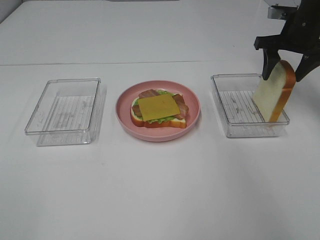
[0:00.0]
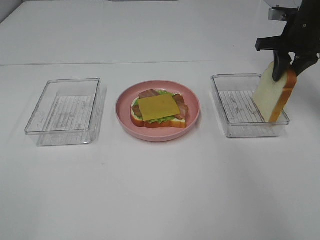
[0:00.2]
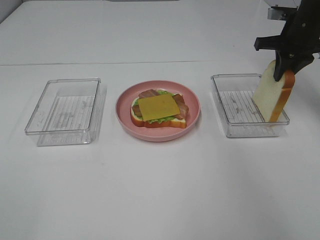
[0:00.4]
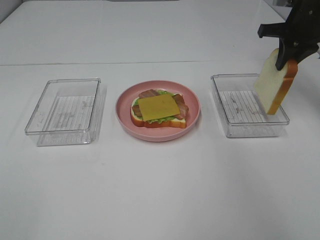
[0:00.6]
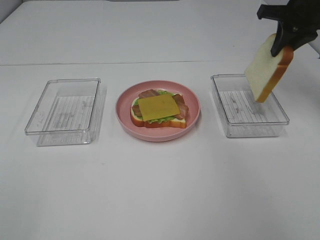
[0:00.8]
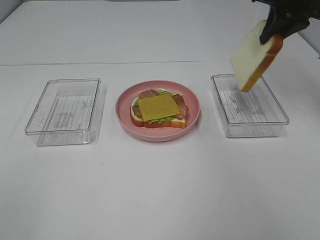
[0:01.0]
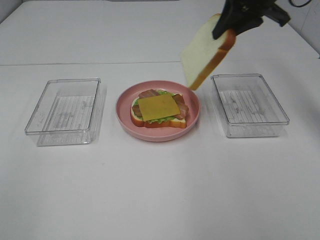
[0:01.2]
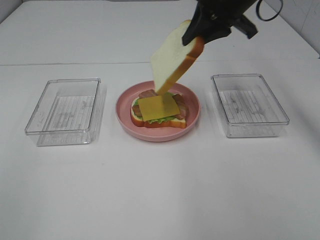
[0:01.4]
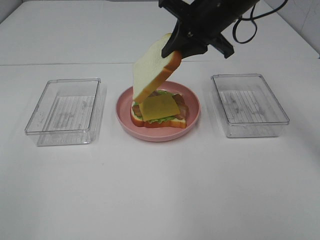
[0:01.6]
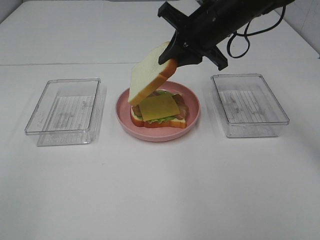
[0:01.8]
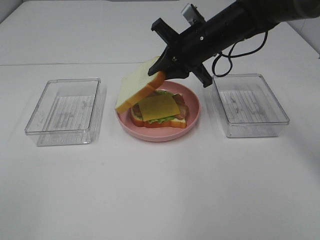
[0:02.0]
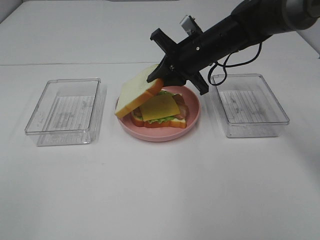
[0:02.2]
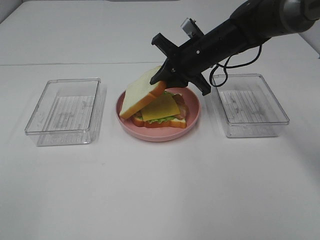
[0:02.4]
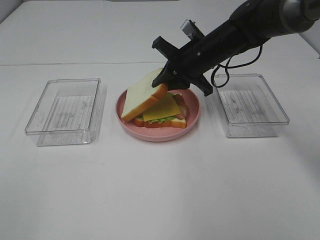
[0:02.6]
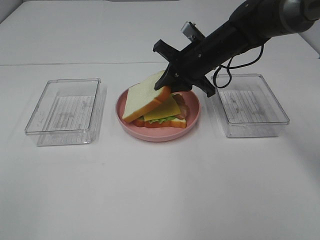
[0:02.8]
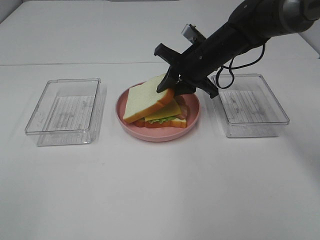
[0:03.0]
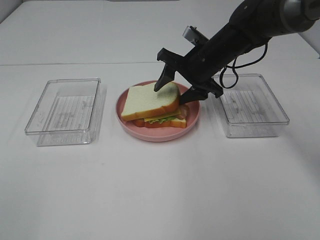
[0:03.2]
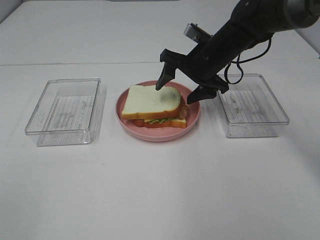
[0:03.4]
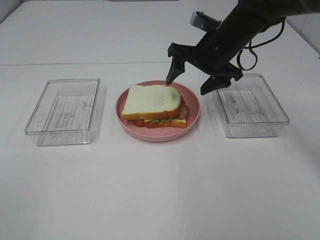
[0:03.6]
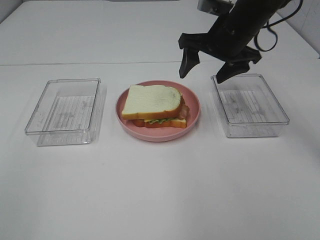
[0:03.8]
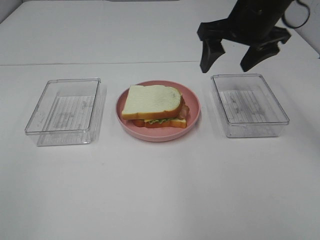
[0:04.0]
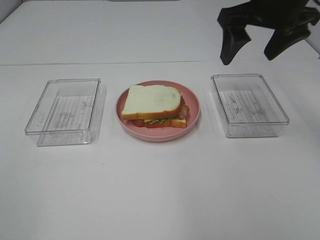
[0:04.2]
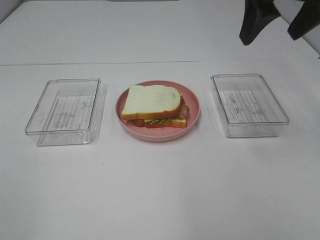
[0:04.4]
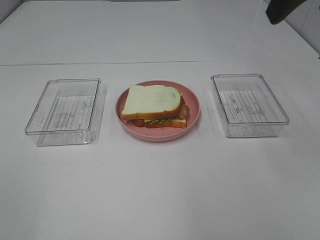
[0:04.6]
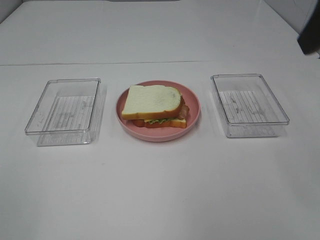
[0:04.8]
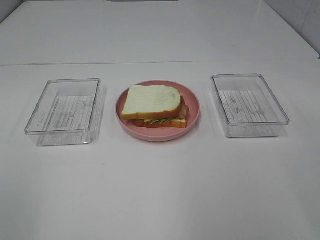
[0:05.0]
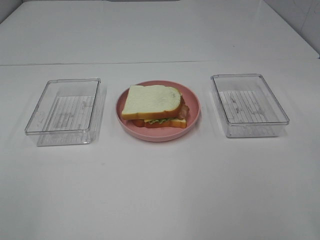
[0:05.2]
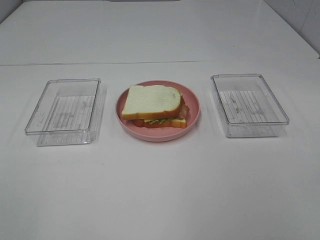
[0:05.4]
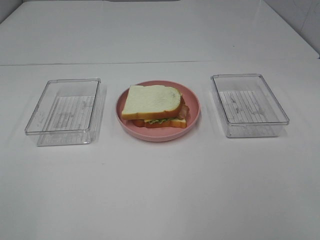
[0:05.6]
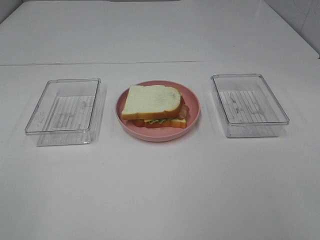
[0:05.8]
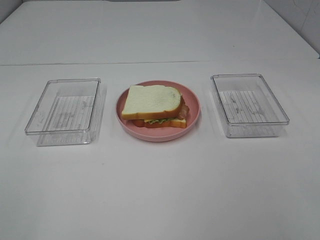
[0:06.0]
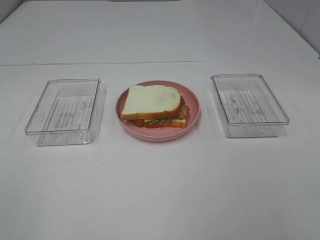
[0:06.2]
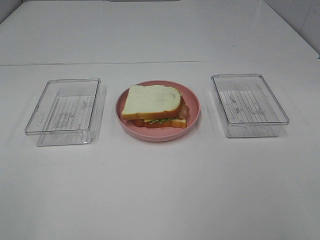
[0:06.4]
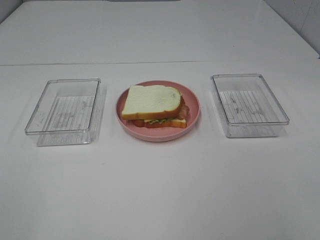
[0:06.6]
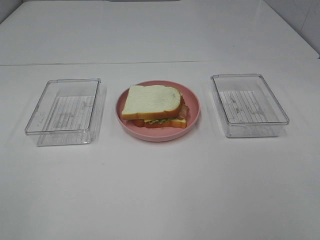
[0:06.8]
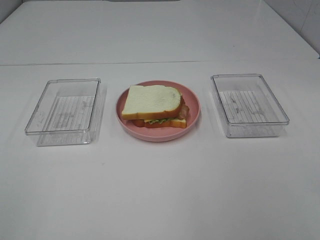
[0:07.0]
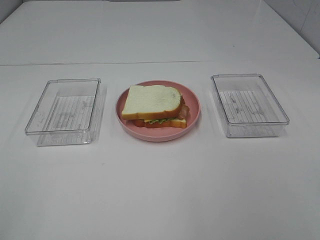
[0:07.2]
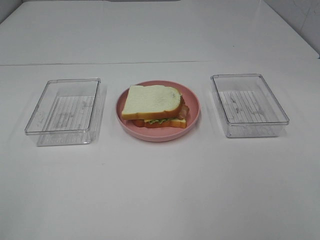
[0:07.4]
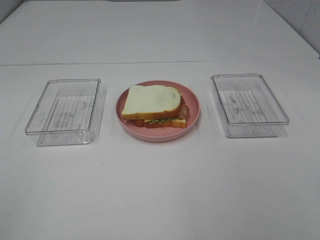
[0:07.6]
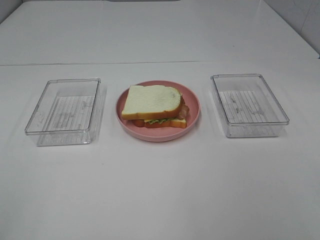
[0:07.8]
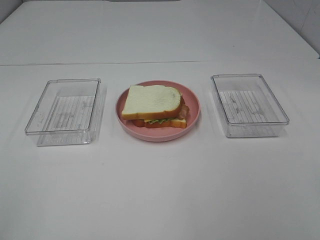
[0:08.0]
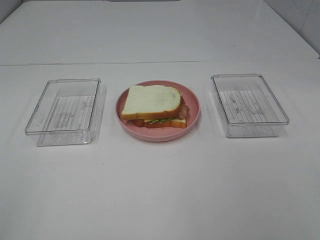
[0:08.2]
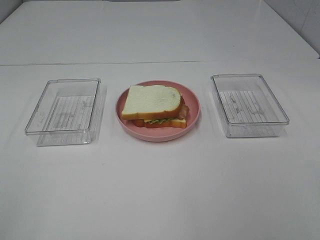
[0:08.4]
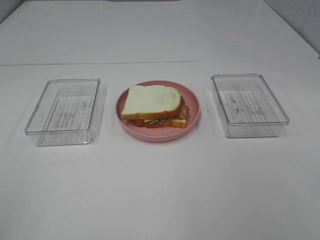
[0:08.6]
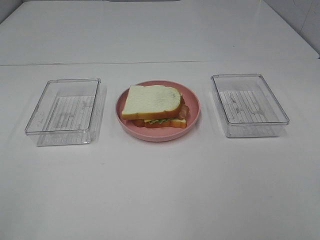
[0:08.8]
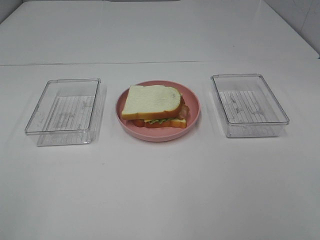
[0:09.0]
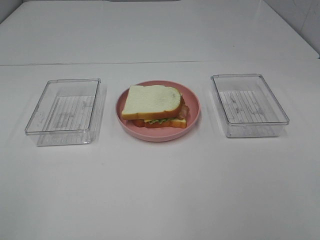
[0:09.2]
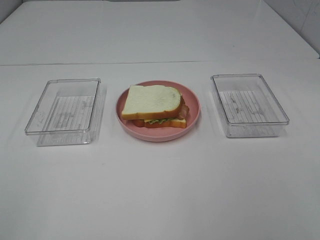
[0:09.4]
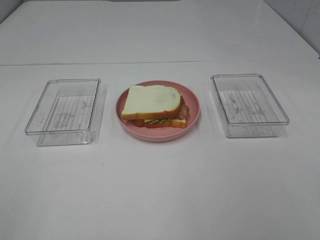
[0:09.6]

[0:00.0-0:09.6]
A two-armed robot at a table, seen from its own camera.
Task of the whole recording: Make sandwiches.
Step, 0:00.6 to 0:03.8: Right hand:place the bread slice on the cheese slice.
0:00.0 to 0:01.6: The right gripper heads to the left, covering about 15 cm, and closes.
0:01.6 to 0:03.2: The right gripper moves downward, some 10 cm, and opens its fingers.
0:03.2 to 0:04.8: The right gripper moves upward, backward and to the right, roughly 35 cm.
0:04.8 to 0:06.4: The right gripper moves backward and downward, approximately 20 cm.
0:08.0 to 0:09.6: Neither gripper changes place.

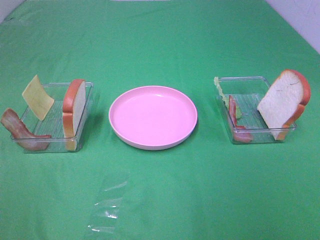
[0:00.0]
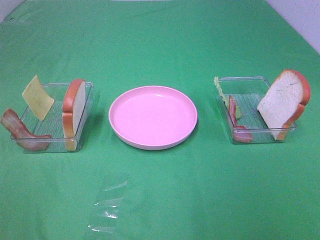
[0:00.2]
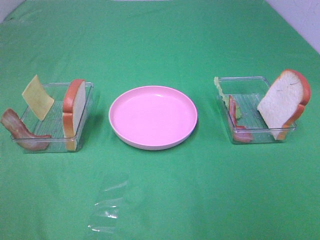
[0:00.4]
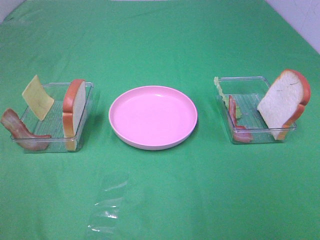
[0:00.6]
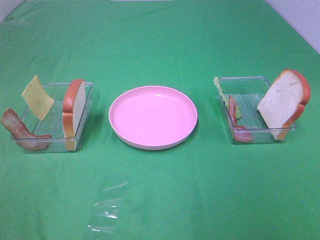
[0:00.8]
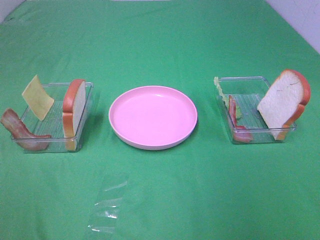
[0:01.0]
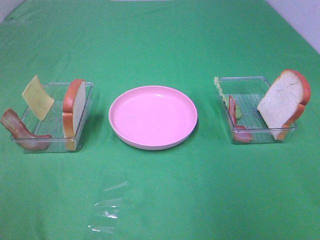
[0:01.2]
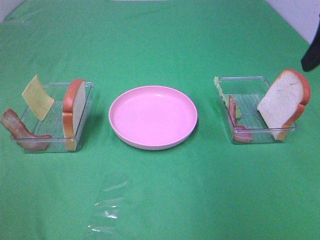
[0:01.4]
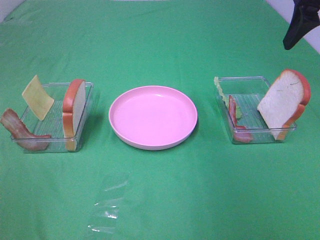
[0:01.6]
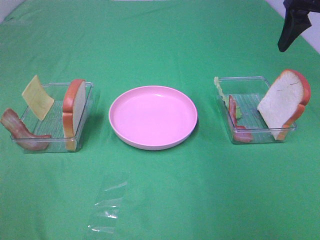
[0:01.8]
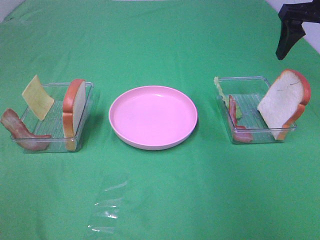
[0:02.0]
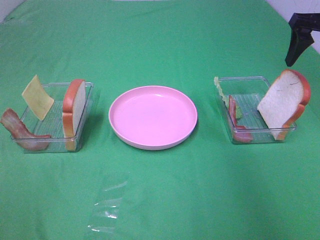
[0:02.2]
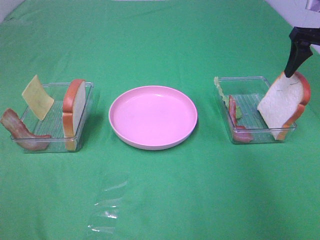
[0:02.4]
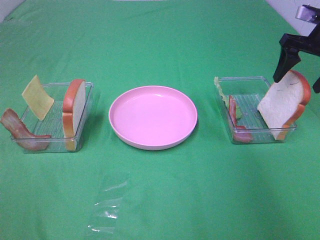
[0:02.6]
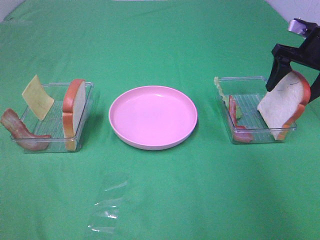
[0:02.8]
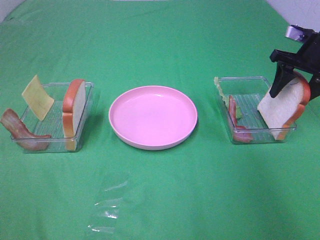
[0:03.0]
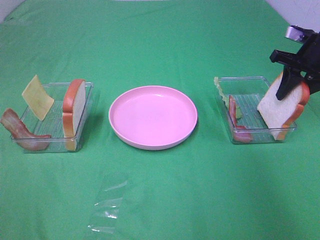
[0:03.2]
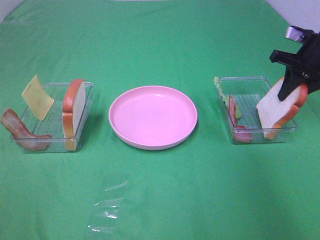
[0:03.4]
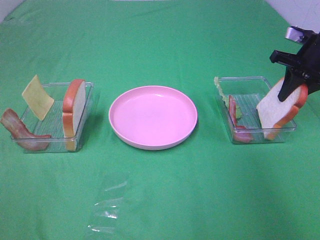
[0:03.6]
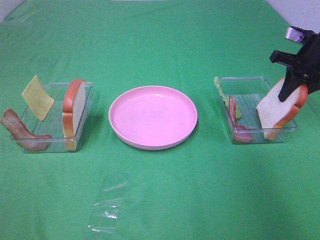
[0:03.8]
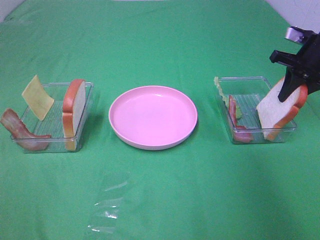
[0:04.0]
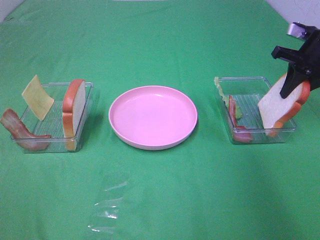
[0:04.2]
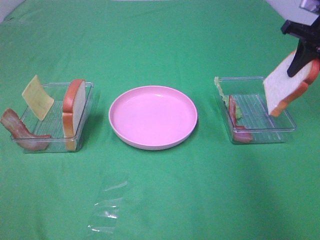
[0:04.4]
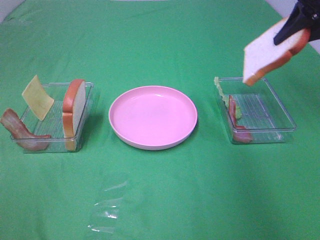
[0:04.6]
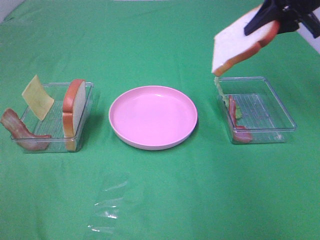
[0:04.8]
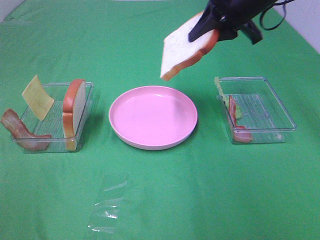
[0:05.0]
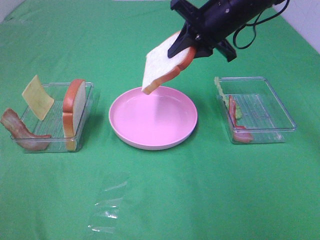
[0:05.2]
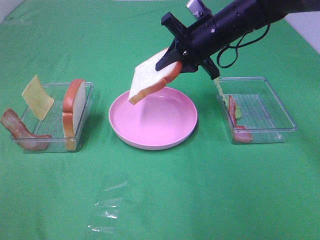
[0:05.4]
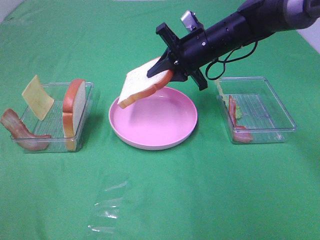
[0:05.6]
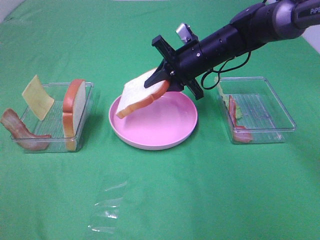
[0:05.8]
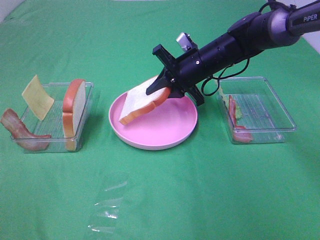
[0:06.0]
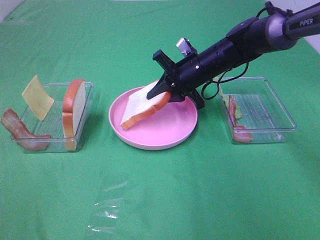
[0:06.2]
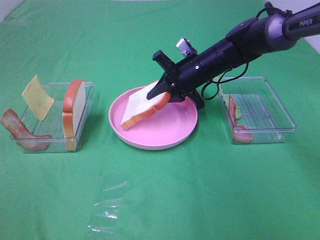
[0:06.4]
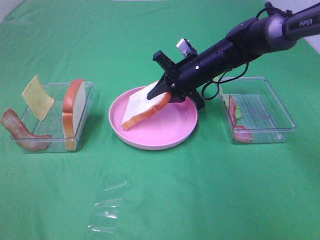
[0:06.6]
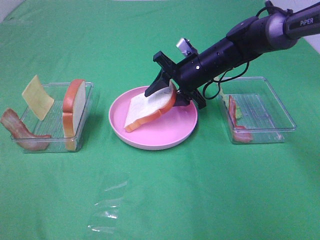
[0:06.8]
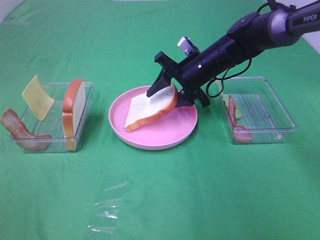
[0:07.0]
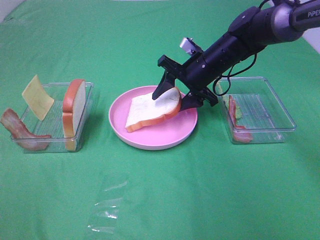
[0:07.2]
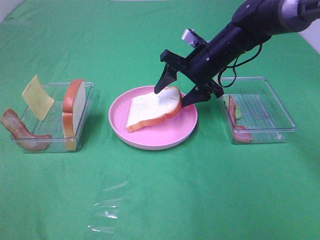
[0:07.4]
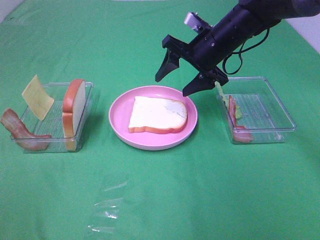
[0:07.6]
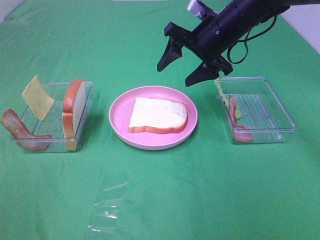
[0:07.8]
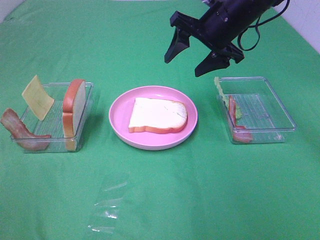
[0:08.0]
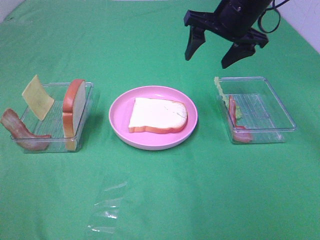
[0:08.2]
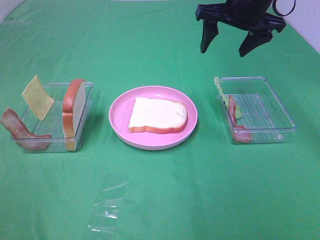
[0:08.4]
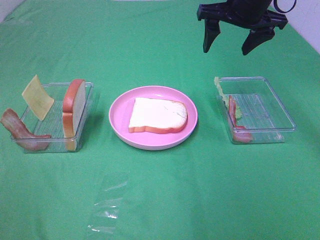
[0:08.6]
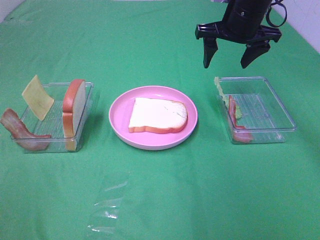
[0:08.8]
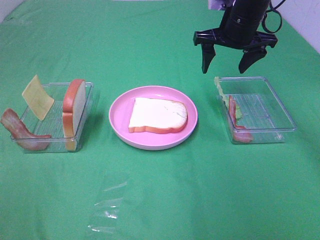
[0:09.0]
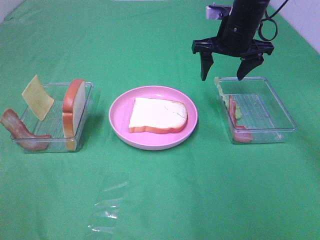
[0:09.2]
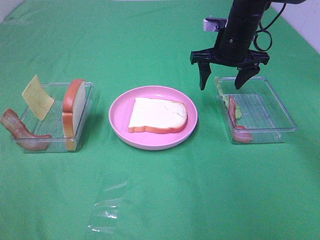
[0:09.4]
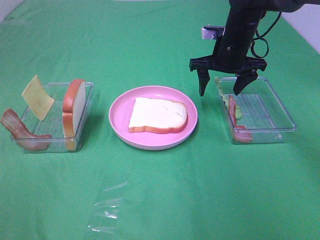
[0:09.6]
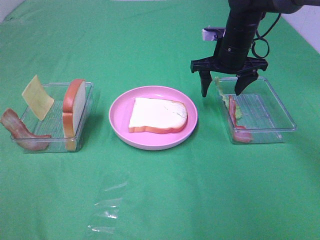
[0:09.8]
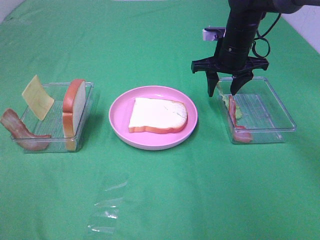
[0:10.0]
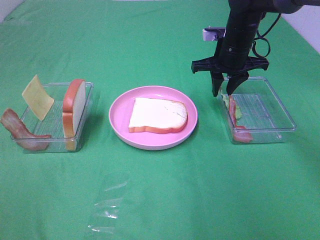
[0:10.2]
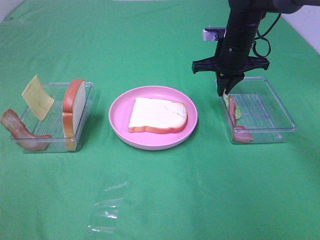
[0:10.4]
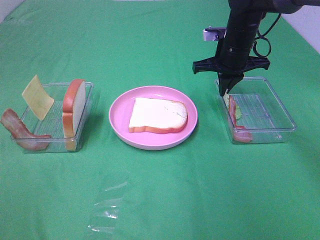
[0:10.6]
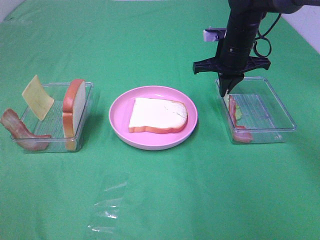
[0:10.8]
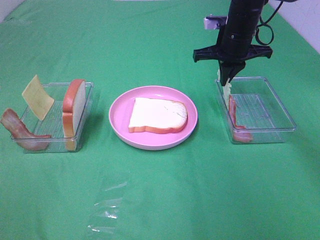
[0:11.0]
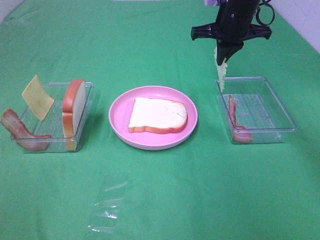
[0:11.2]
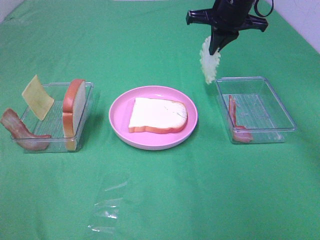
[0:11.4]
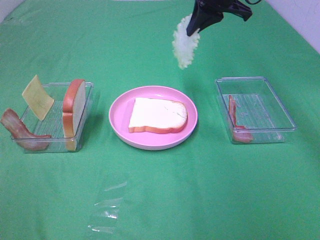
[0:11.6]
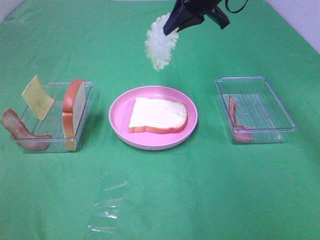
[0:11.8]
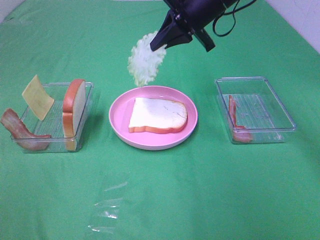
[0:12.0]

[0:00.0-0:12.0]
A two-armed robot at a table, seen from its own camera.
Task of the whole recording: Make sandwiches.
Step, 0:00.0 to 0:03.2: Right hand:grab the bread slice.
Step, 0:03.4 to 0:07.6: Right hand:place the bread slice on the plate.
Step, 0:07.8 to 0:10.8: Right hand:grab the lettuce slice.
0:00.0 to 0:01.6: The right gripper is displaced forward by about 35 cm.
0:01.6 to 0:03.0: The right gripper travels downward and forward by roughly 15 cm.
0:03.0 to 0:04.4: The right gripper shifts approximately 5 cm upward, and closes.
0:04.4 to 0:06.0: The right gripper goes some 25 cm to the left and downward.
0:06.0 to 0:07.6: The right gripper goes some 5 cm upward, and opens its fingers.
0:09.0 to 0:10.4: The right gripper shifts about 5 cm downward, and closes up.
0:10.4 to 0:12.0: The right gripper travels upward and to the left by roughly 10 cm.
